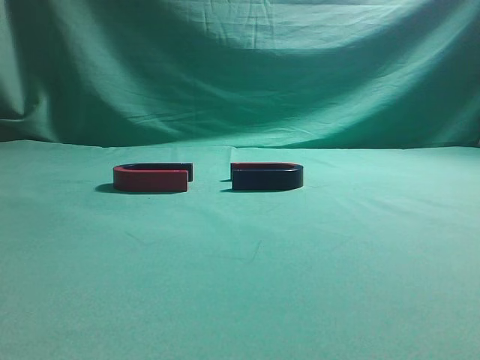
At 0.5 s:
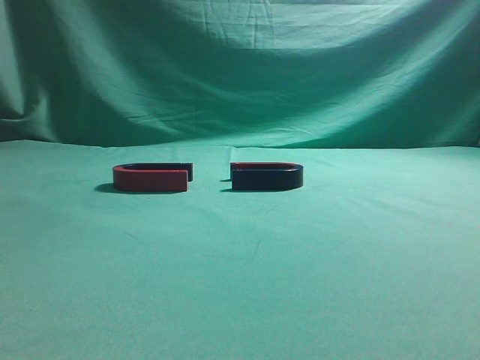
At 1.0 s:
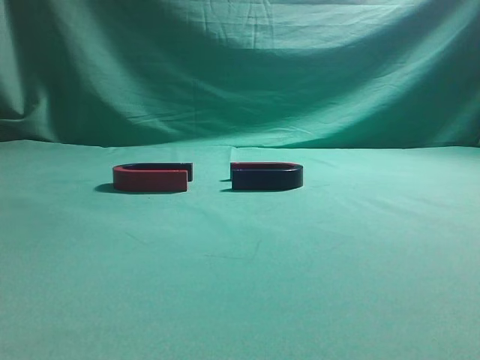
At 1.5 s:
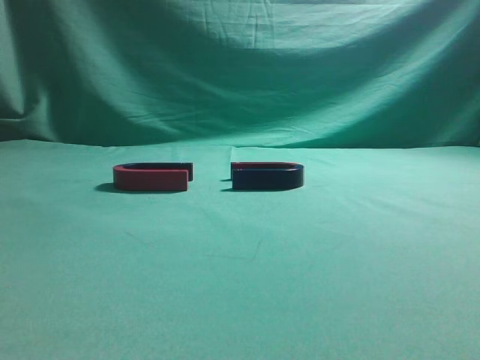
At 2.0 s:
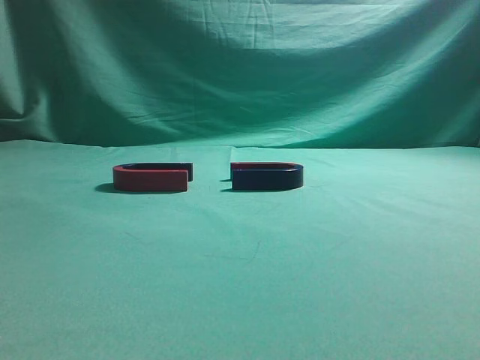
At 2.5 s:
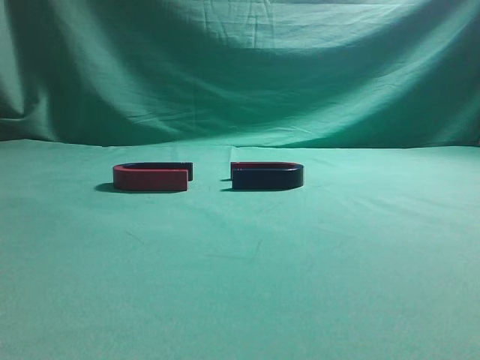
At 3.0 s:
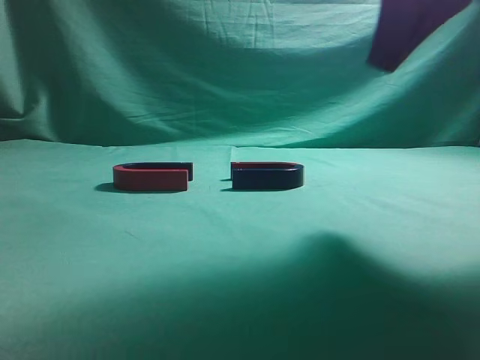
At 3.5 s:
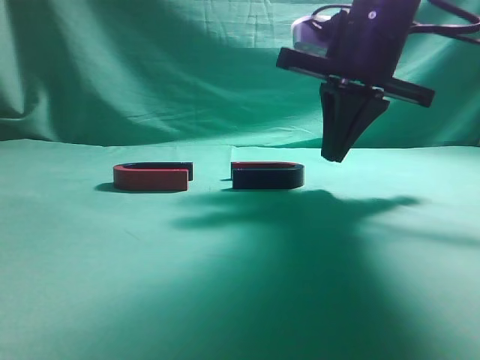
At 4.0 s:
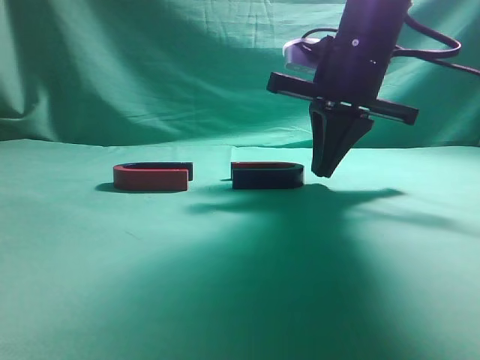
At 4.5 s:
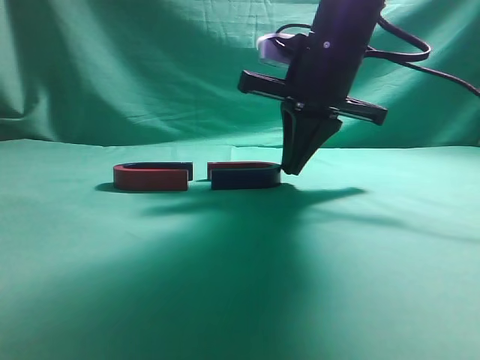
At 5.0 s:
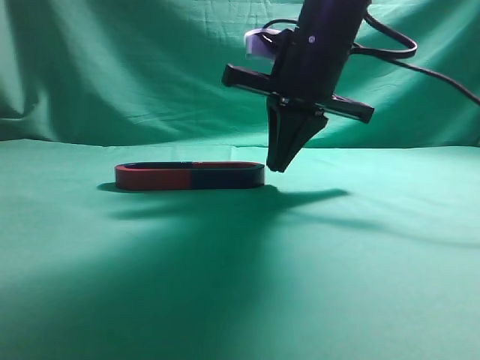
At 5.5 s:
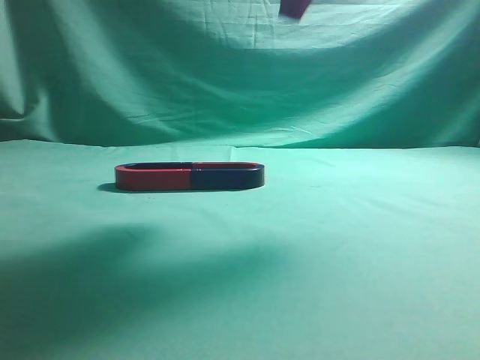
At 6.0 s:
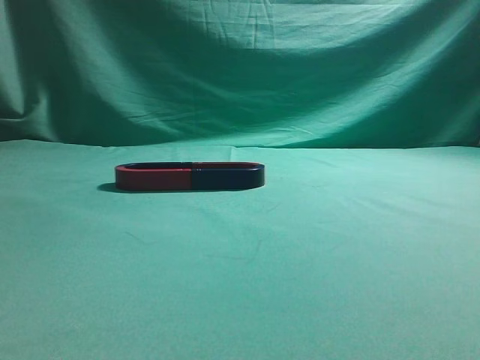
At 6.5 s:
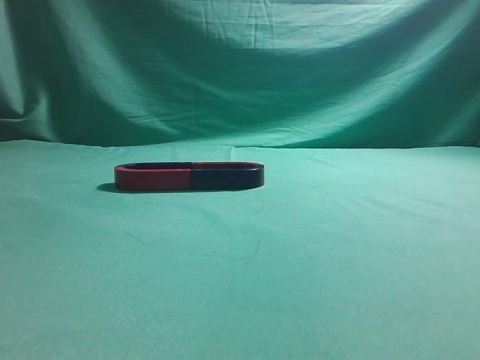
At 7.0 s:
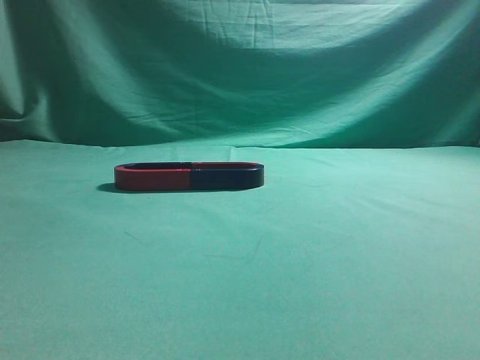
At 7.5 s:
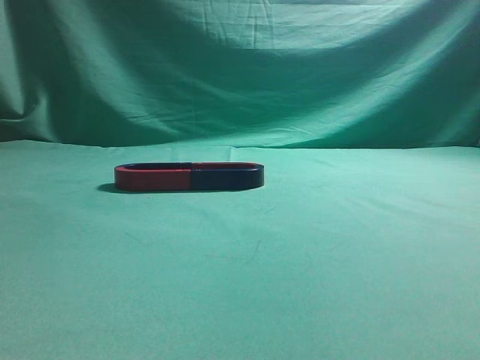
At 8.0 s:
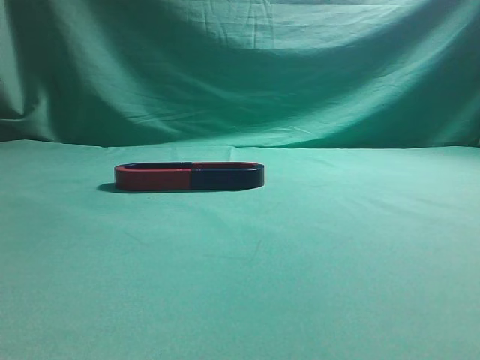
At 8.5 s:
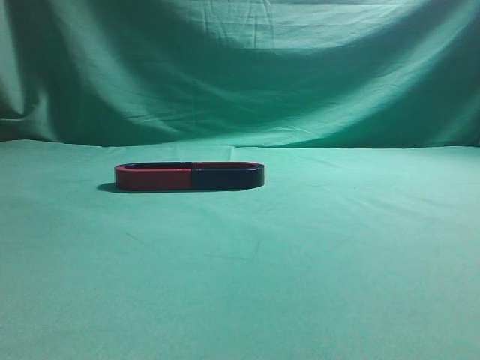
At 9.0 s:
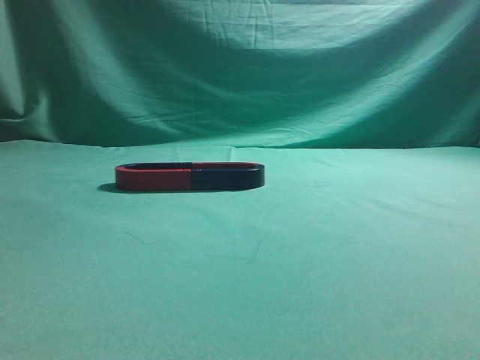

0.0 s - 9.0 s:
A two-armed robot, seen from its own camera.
Task of the whole recording: push the magnet on the table from its original position to another position.
Step, 0.0 s - 5.0 s: Push the magnet on the right to connect the magnet on the left.
2.0 s - 4.5 s: The right gripper travels forward and to the left by about 35 cm.
4.5 s - 7.0 s: The right gripper is displaced backward, upward and to the right by about 50 cm.
